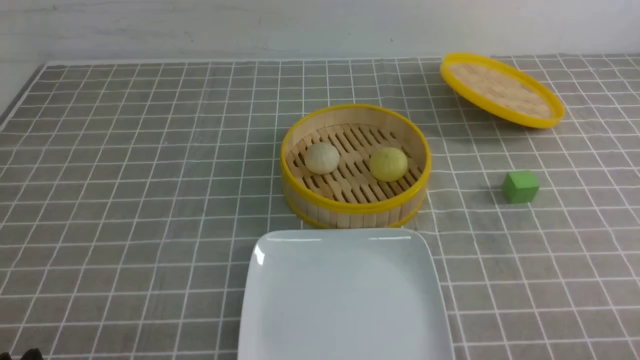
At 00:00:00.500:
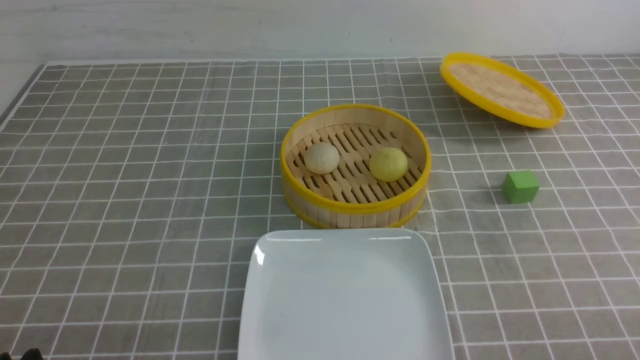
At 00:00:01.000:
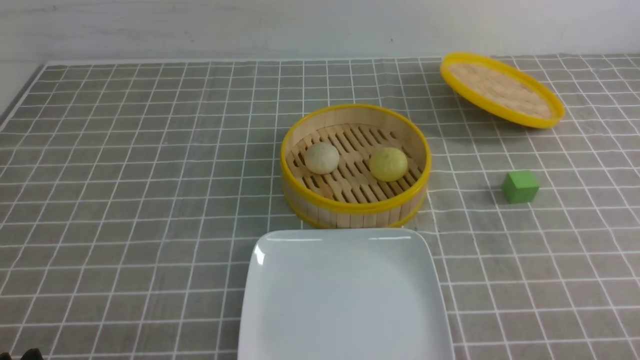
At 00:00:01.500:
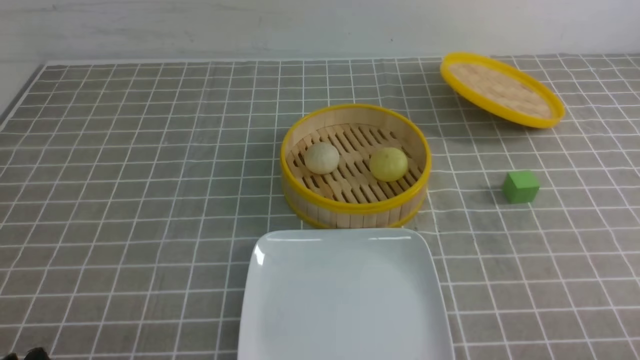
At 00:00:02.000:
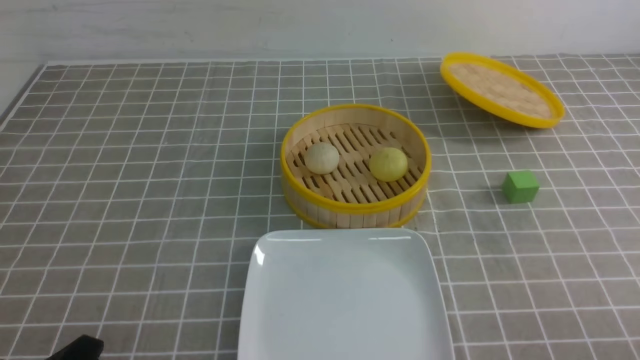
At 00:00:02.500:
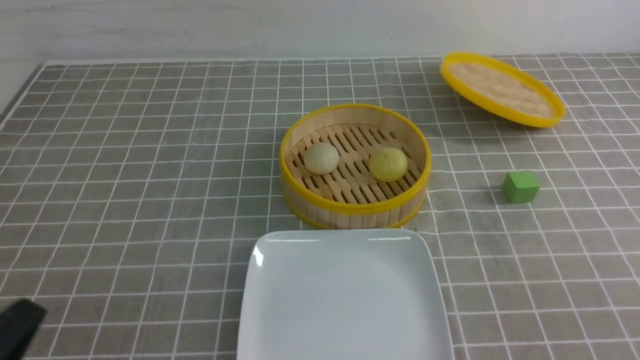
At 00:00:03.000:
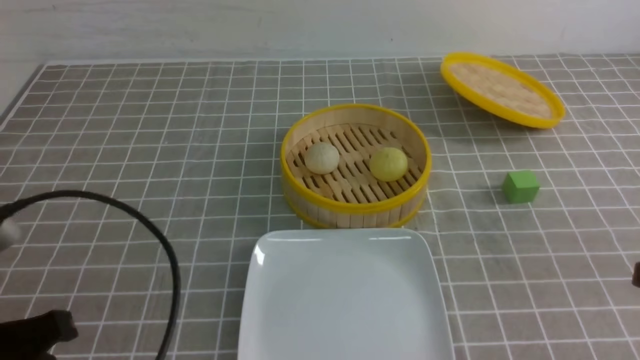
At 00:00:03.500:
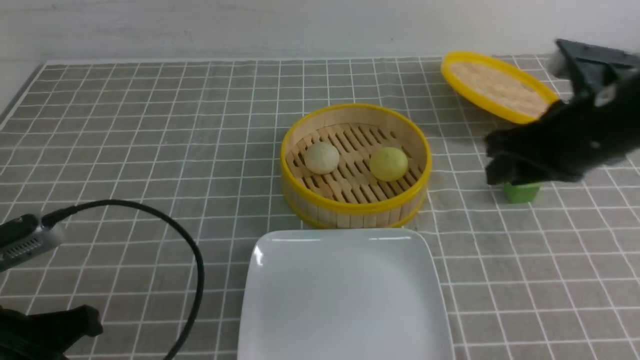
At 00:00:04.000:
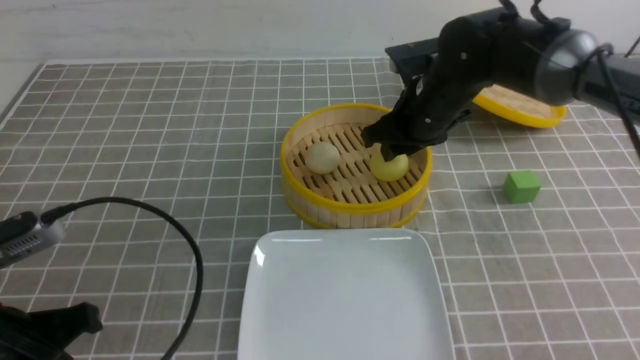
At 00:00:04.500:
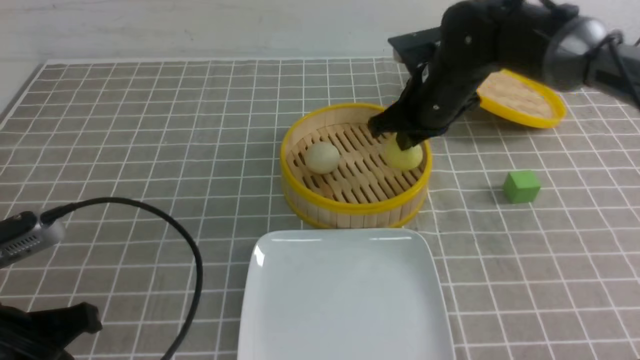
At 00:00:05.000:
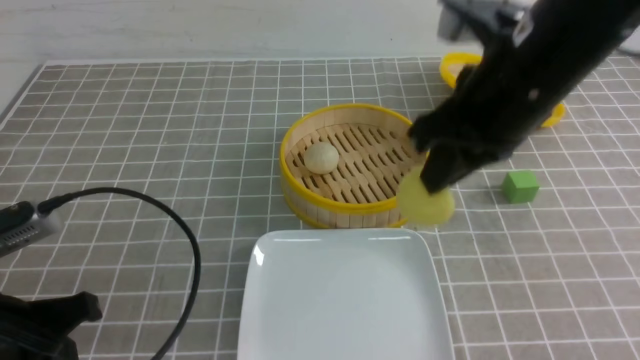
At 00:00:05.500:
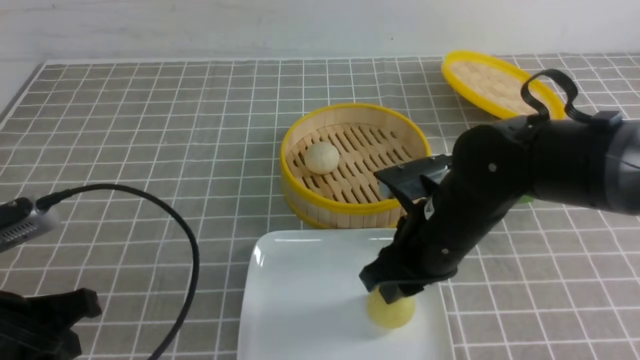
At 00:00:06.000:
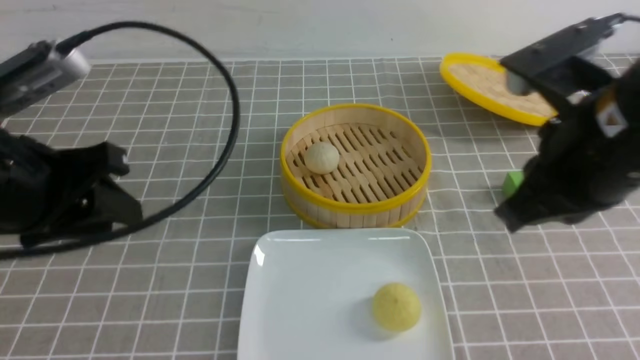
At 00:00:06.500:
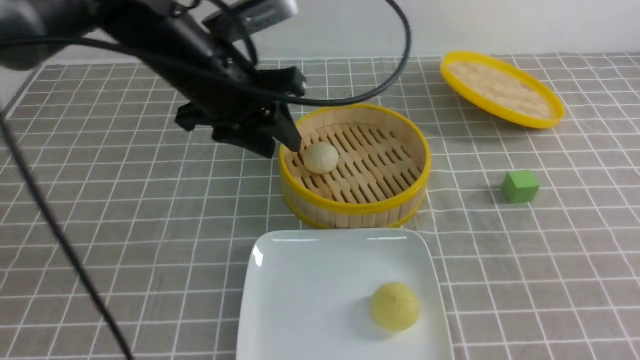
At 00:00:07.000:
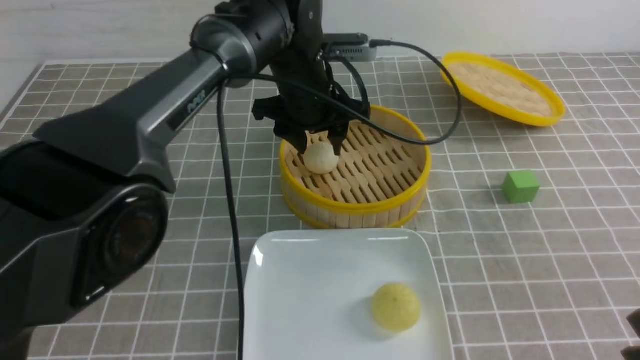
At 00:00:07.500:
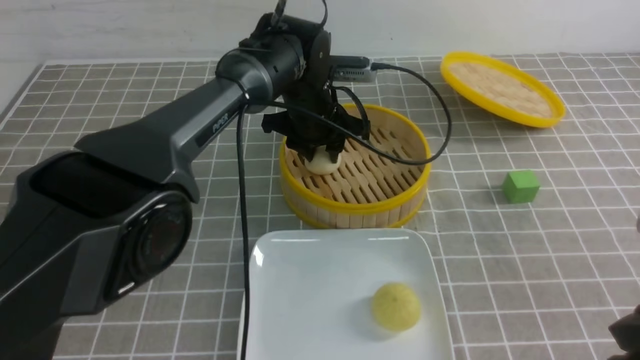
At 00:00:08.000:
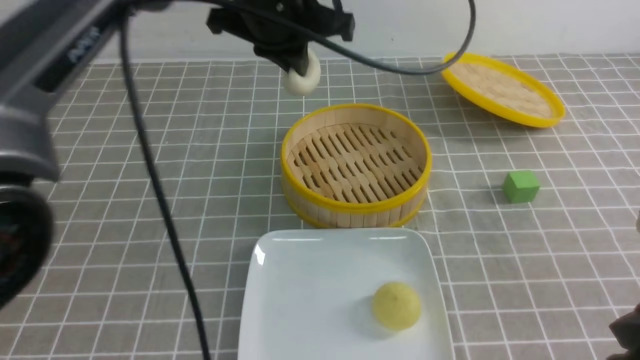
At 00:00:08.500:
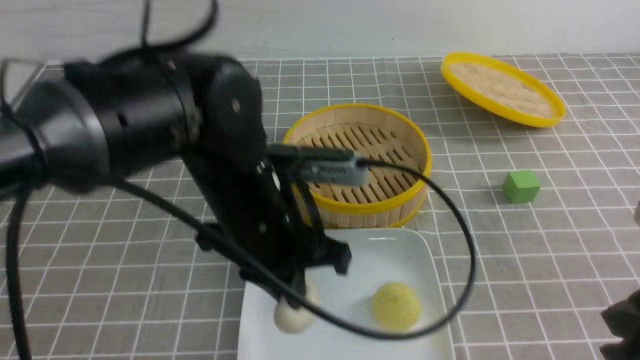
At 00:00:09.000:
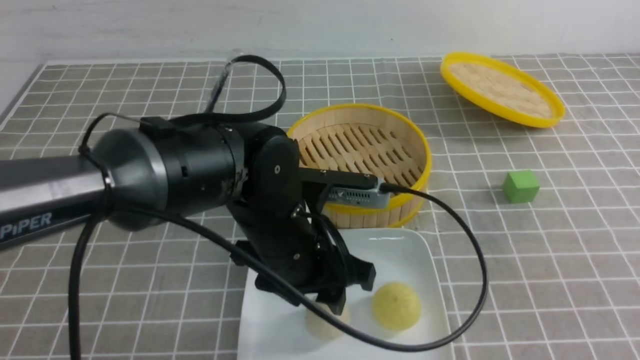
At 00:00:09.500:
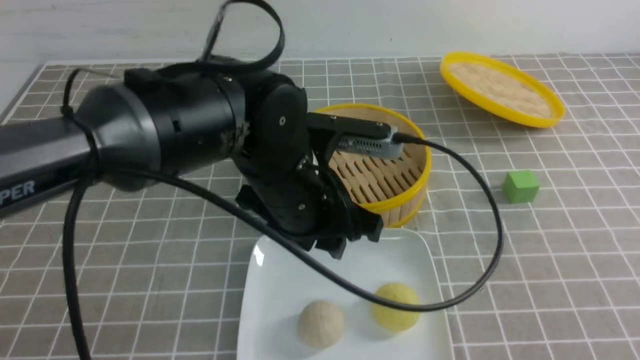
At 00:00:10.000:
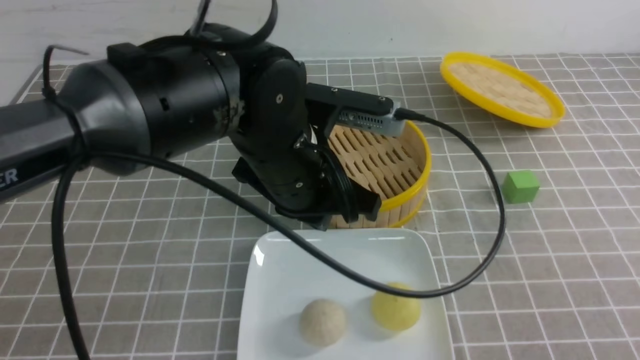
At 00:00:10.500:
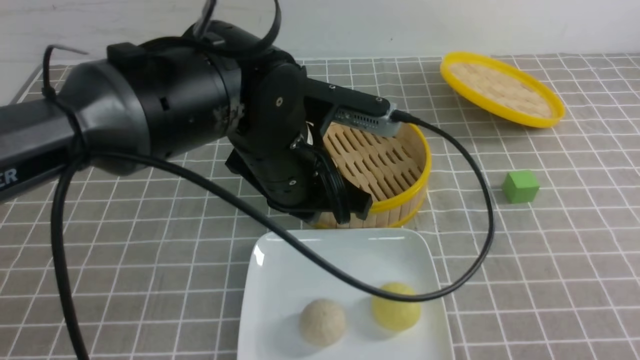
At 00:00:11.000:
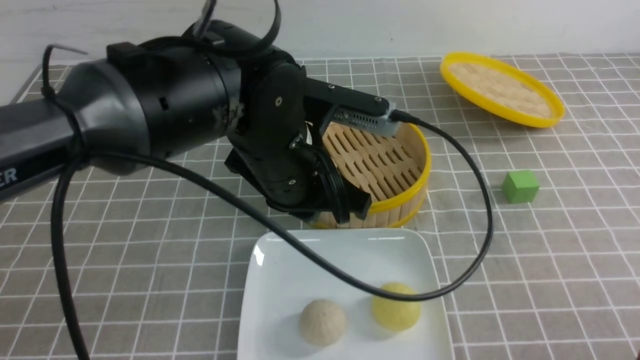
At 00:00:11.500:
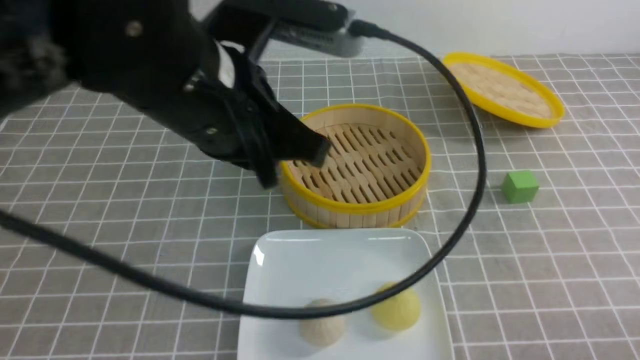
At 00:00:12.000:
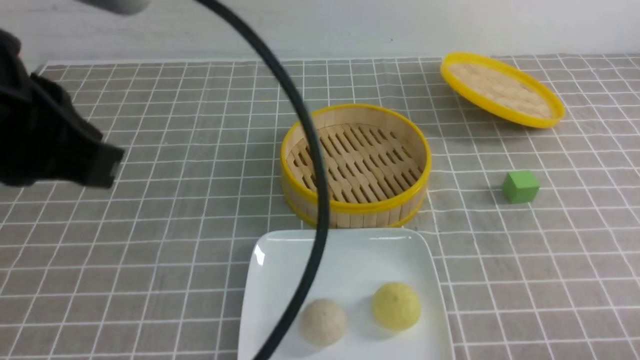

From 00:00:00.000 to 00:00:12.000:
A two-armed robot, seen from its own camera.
Step, from 00:00:00.000 to 00:00:04.000: use the right arm to grab the steamed stuffed bun that is closest to it.
Step, from 00:00:04.500 to 00:00:05.500: use the right arm to put the steamed stuffed bun into the plate.
Step, from 00:00:06.000 to 00:00:07.500: use the left arm to grab the steamed stuffed bun that is closest to it.
Step, from 00:00:08.000 to 00:00:09.000: use the left arm to put the steamed stuffed bun into the plate.
From 00:00:02.000 to 00:00:04.000: The right gripper shifts about 40 cm forward and to the left, and closes and opens again. Meanwhile the left gripper goes approximately 10 cm forward and upward, and closes its fingers.
From 00:00:04.000 to 00:00:06.000: The right gripper is displaced backward and upward by some 25 cm, and closes up. Meanwhile the left gripper travels upward and forward by roughly 10 cm, and opens.
From 00:00:06.000 to 00:00:08.000: The right gripper heads backward, to the right and downward, covering approximately 10 cm; the left gripper is displaced to the right and forward by roughly 25 cm, and closes its fingers.
From 00:00:08.000 to 00:00:10.000: The right gripper shifts roughly 10 cm backward and to the right. Meanwhile the left gripper is displaced backward and downward by approximately 15 cm, and opens and closes again.
From 00:00:10.000 to 00:00:12.000: The right gripper heads downward, covering roughly 10 cm. Meanwhile the left gripper heads to the left, upward and backward, covering some 25 cm.

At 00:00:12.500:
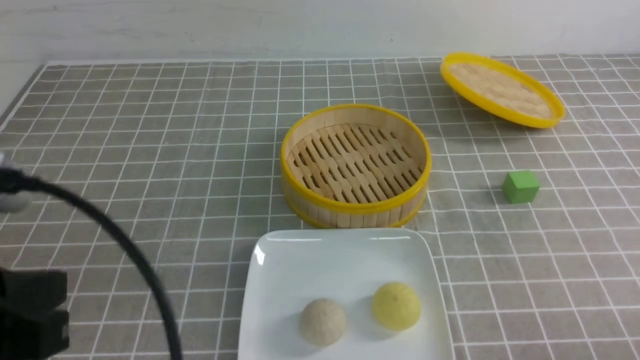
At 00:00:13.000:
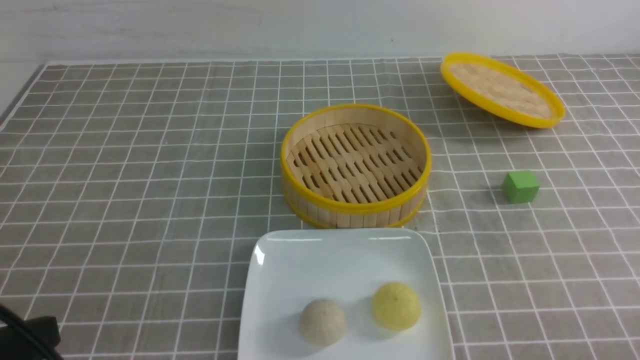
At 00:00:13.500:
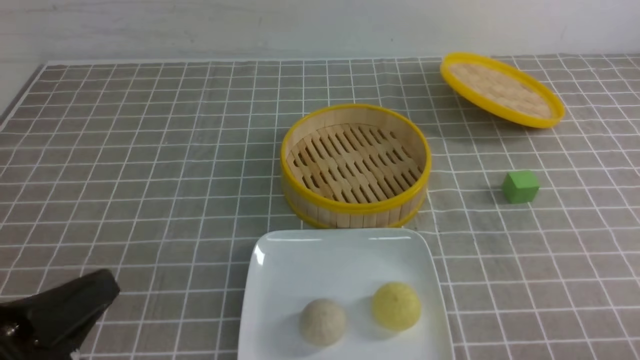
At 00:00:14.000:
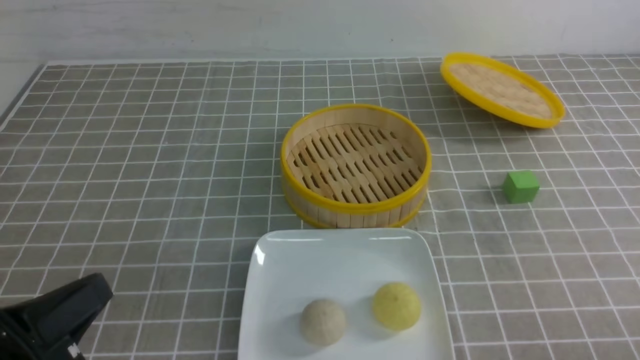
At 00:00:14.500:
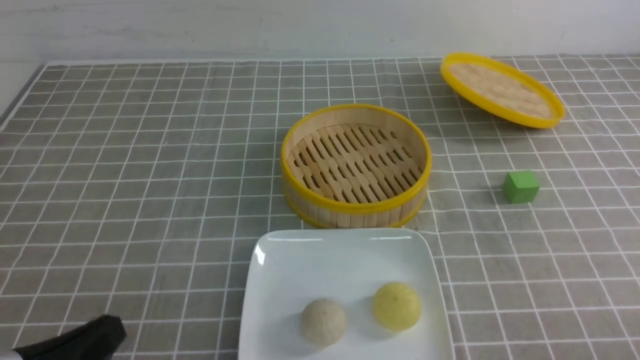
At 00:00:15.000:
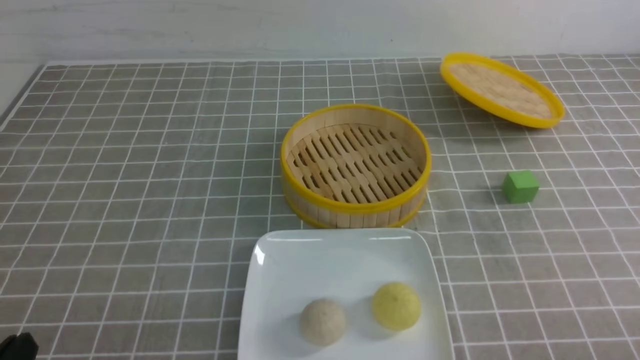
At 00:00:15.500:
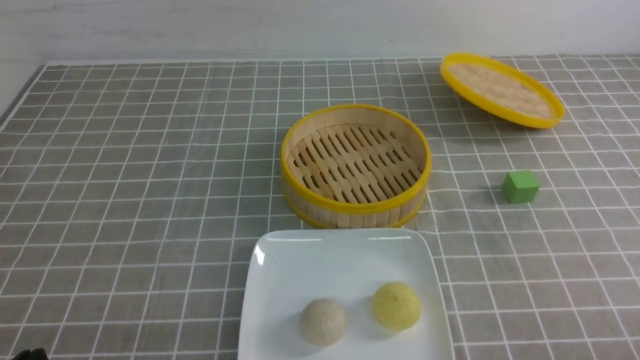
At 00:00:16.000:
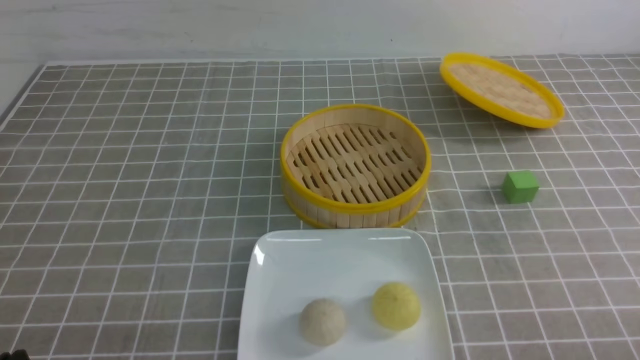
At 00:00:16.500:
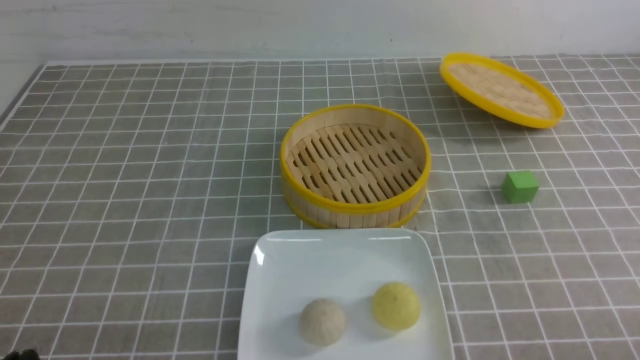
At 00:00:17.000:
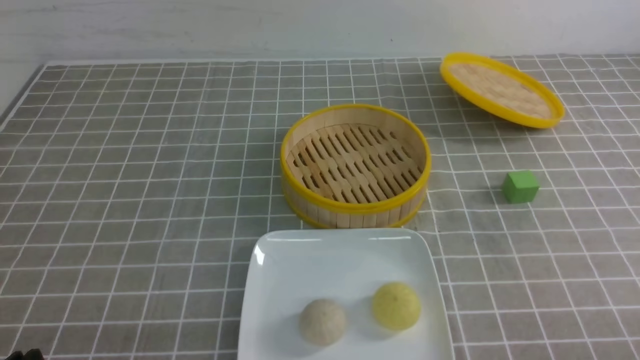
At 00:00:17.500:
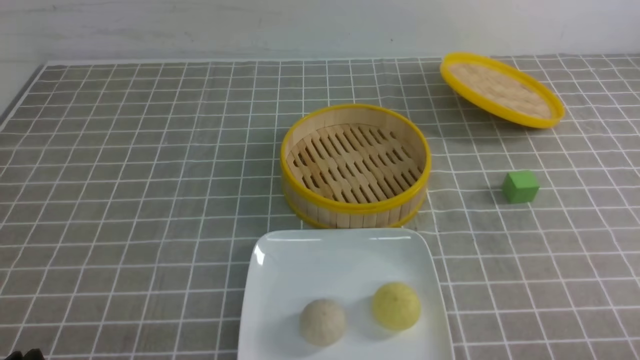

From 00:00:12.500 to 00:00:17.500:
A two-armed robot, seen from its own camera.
From 00:00:12.500 to 00:00:15.000: The left gripper moves downward, about 15 cm.
